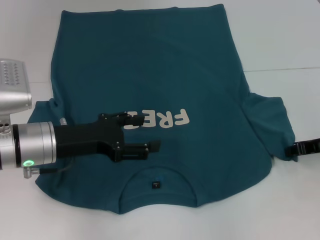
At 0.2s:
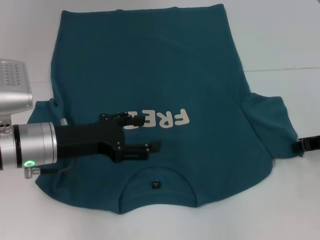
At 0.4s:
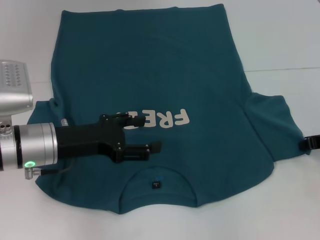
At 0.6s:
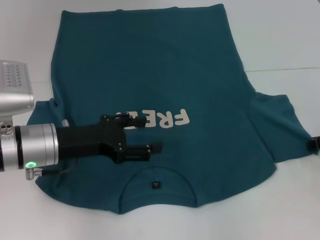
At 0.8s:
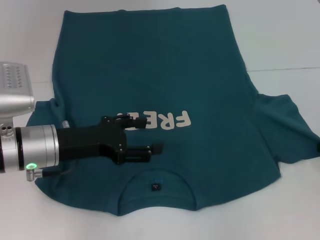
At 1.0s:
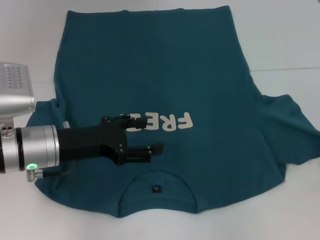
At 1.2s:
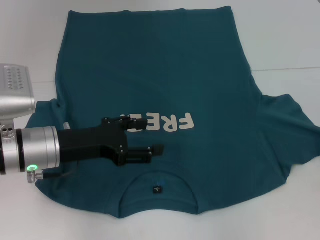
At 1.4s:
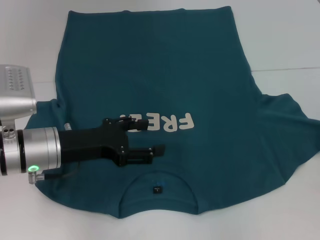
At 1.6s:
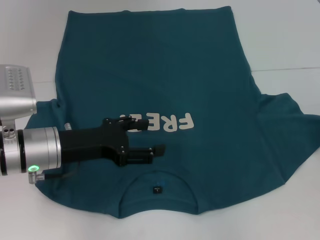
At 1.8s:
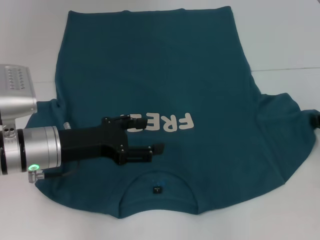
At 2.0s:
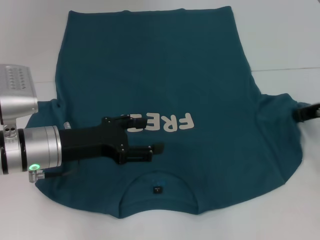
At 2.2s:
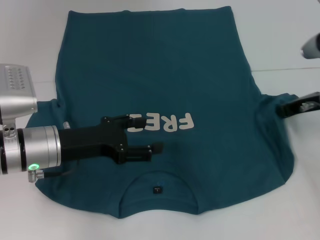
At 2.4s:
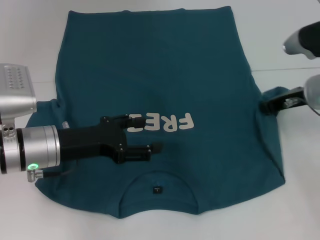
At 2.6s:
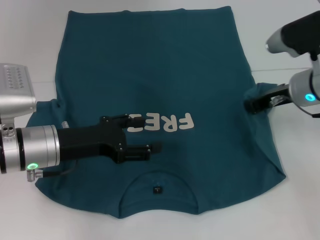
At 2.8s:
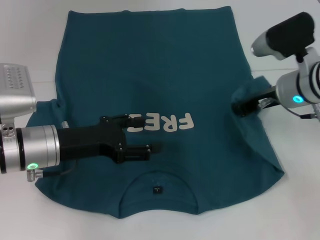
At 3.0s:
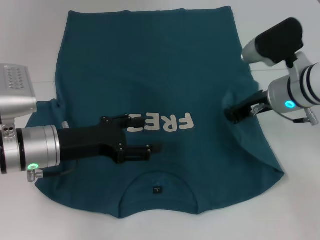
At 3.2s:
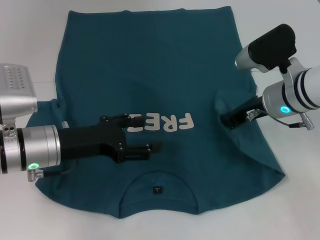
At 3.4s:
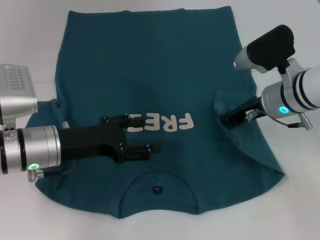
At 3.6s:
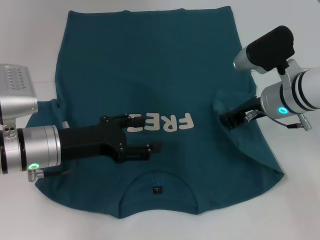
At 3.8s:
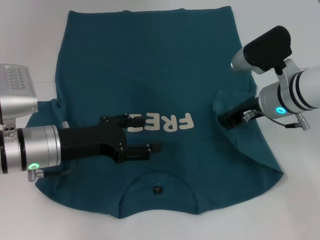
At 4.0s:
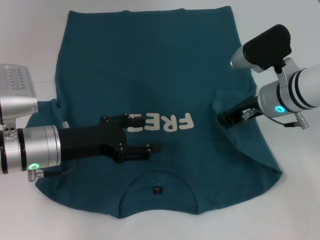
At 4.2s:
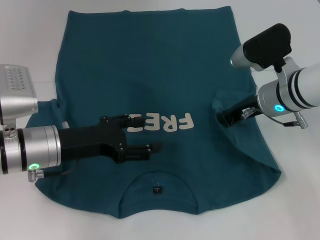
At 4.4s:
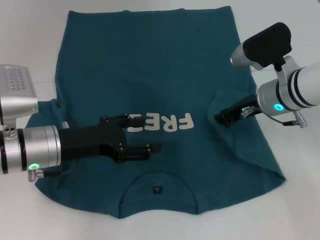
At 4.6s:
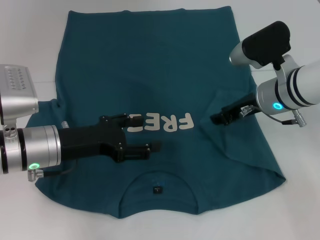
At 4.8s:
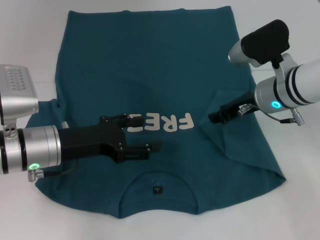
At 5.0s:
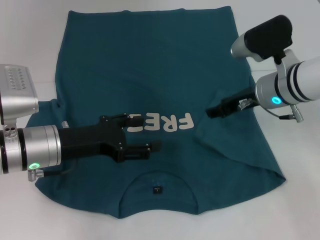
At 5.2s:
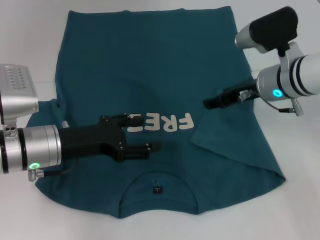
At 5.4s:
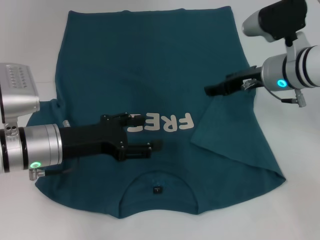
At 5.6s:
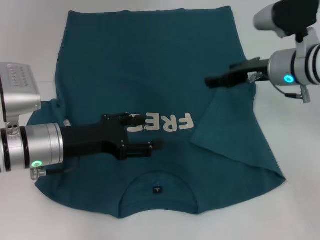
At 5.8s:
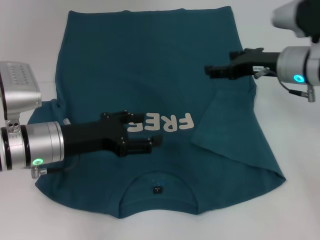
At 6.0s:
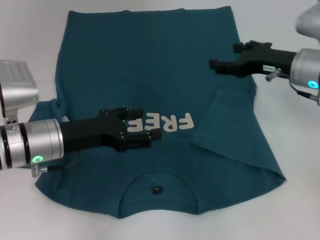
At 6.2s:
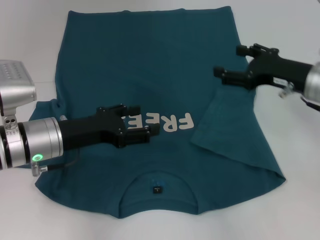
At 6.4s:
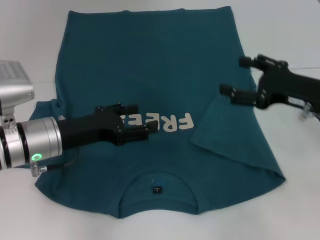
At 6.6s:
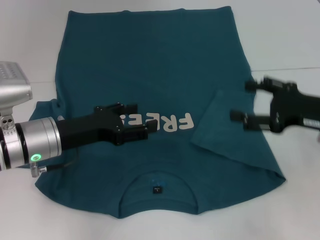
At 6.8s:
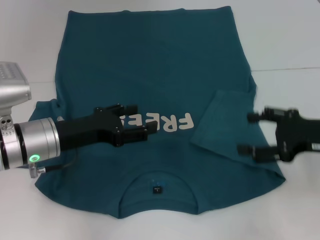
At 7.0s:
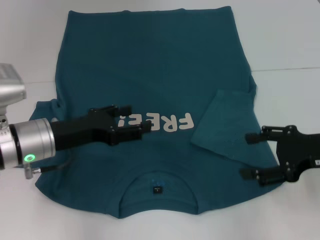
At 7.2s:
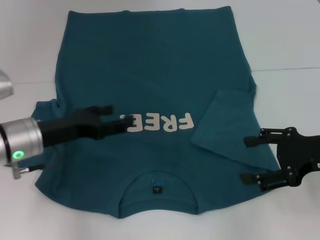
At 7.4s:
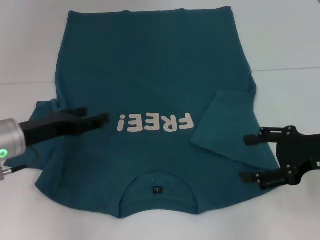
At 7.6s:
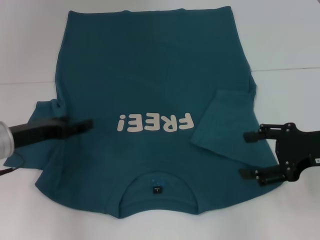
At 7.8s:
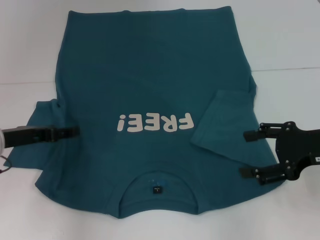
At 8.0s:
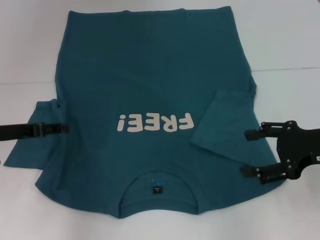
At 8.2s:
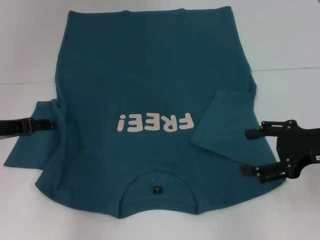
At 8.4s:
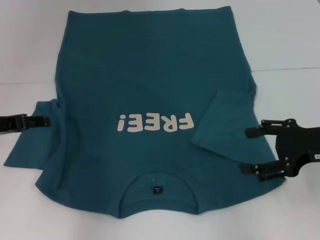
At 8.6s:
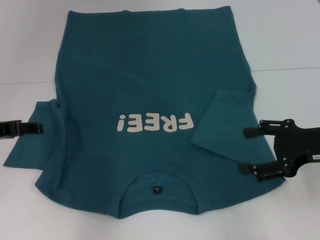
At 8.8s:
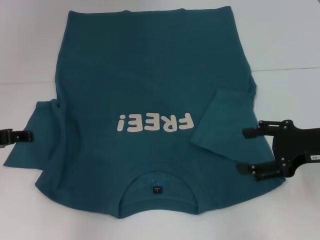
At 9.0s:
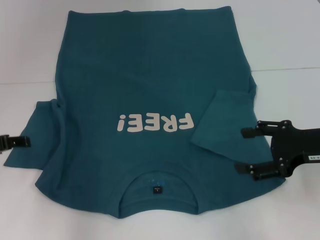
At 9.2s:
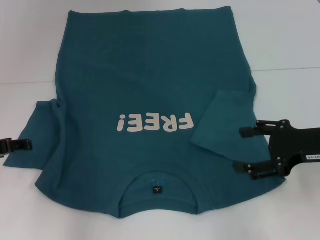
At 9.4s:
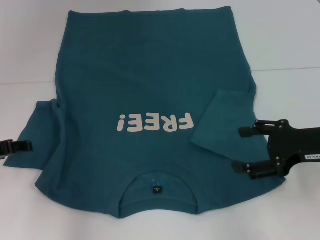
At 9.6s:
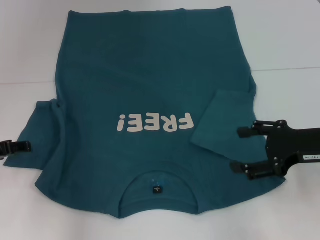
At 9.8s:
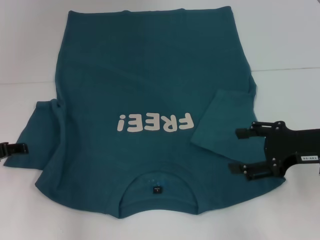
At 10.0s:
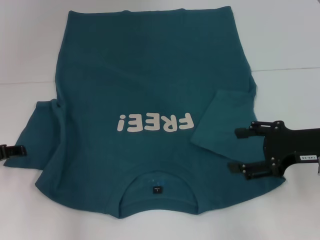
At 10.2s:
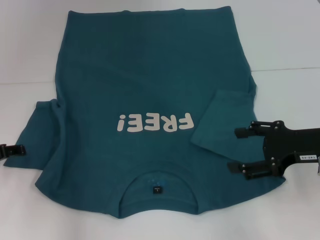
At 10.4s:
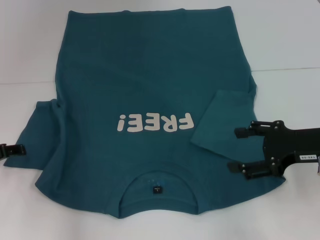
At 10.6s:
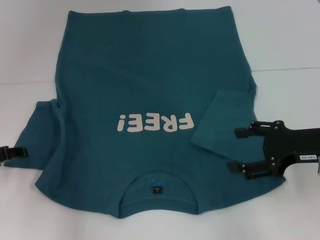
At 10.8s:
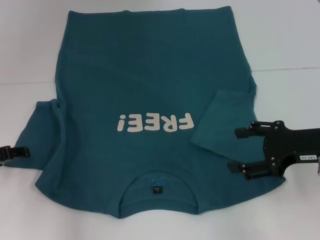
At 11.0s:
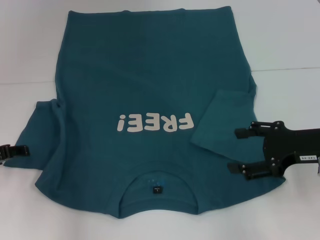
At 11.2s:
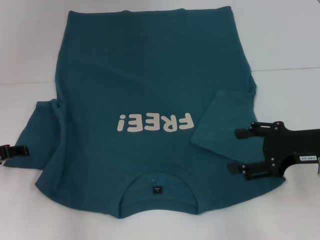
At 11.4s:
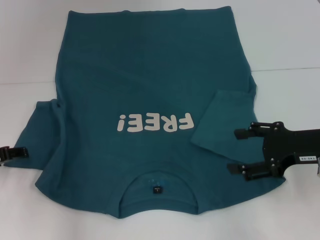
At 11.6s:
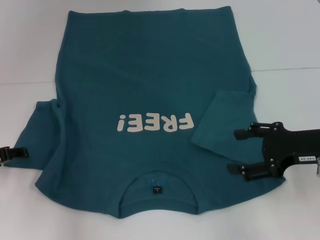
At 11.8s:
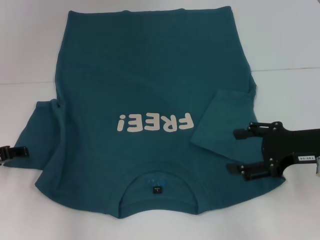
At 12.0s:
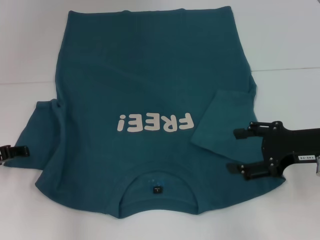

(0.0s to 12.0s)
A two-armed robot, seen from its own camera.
Step, 0.0s - 5.2s: Fold the bottom right sleeve to the right.
0.0s - 1.6s: The right gripper closes up.
1.6s - 3.0s: The right gripper goes roughly 15 cm to the left.
3.0s - 4.4s: There are only small adjustments of the grippers.
4.4s - 6.0s: The right gripper changes place by approximately 5 cm, and opens up.
6.0s - 7.6s: The left gripper shifts roughly 5 cm to the left; the right gripper goes about 10 cm backward.
7.6s - 9.0s: The left gripper changes place by roughly 5 cm.
9.0s - 10.4s: There are only small adjustments of the grippers.
10.4s - 12.0s: The two grippers keep their place.

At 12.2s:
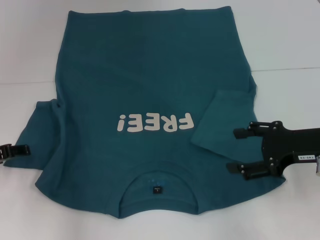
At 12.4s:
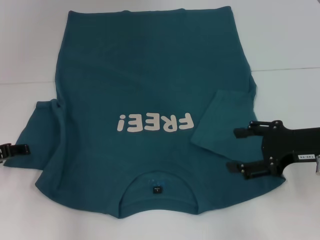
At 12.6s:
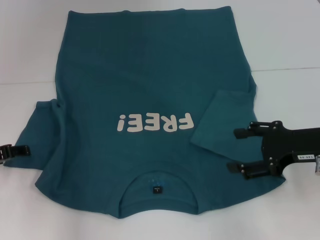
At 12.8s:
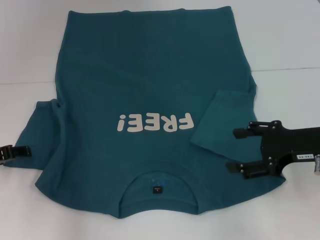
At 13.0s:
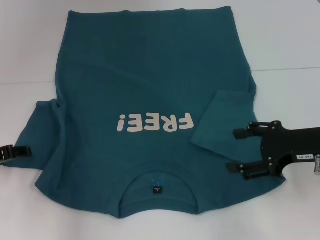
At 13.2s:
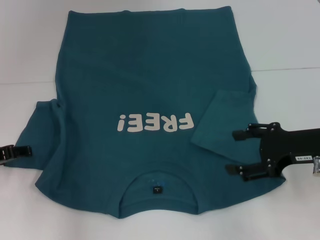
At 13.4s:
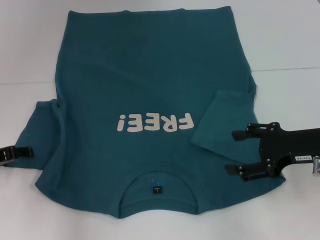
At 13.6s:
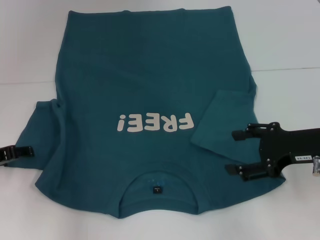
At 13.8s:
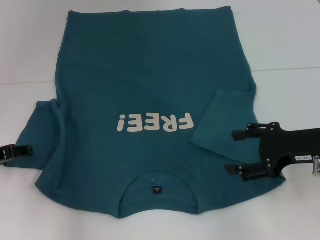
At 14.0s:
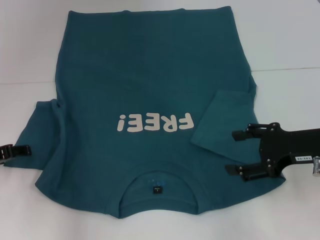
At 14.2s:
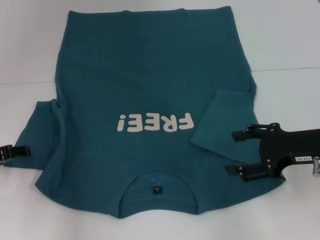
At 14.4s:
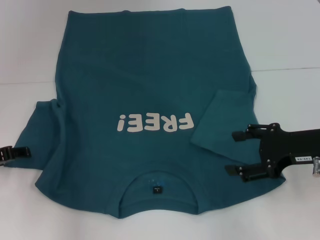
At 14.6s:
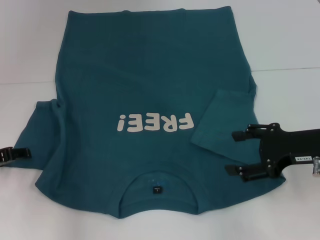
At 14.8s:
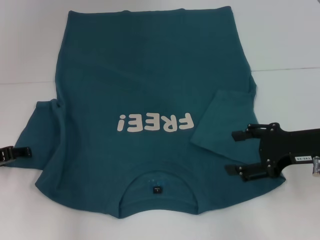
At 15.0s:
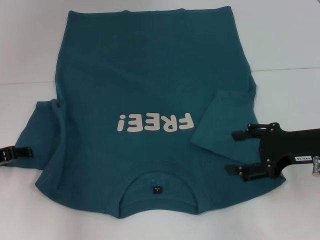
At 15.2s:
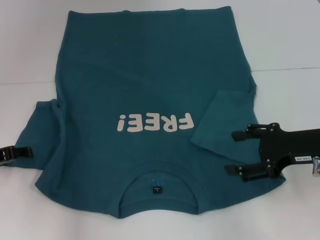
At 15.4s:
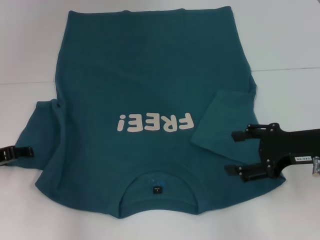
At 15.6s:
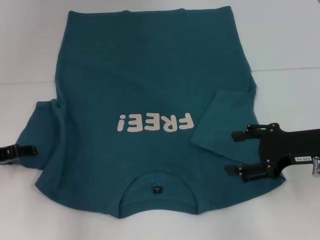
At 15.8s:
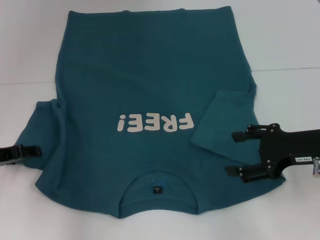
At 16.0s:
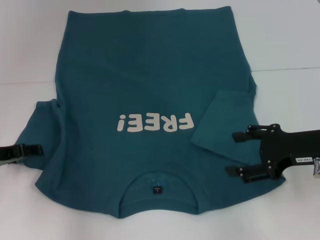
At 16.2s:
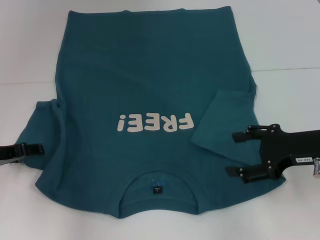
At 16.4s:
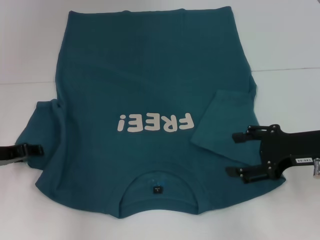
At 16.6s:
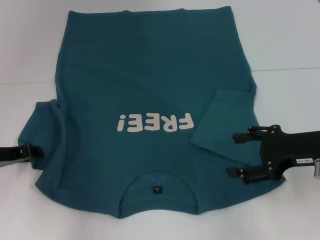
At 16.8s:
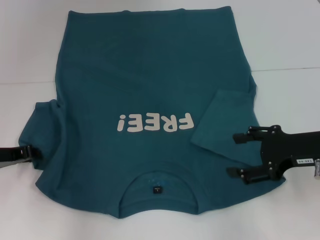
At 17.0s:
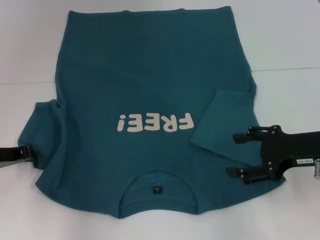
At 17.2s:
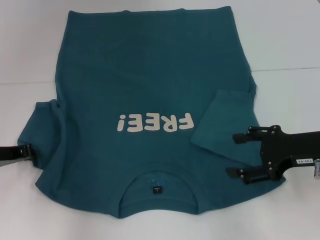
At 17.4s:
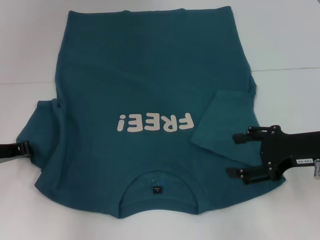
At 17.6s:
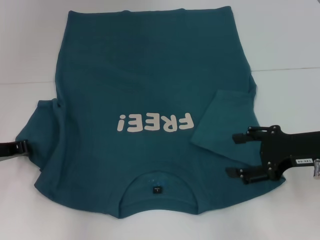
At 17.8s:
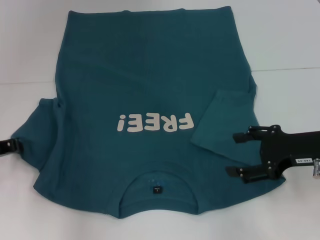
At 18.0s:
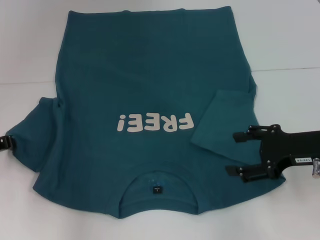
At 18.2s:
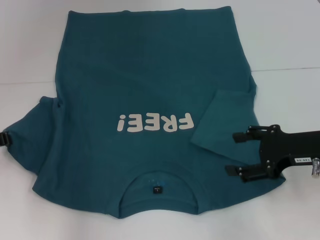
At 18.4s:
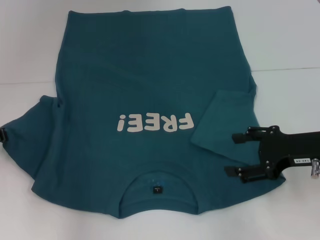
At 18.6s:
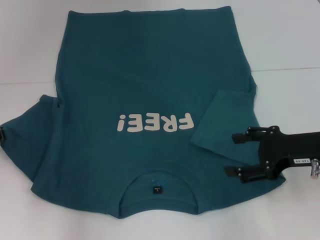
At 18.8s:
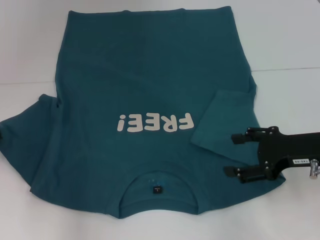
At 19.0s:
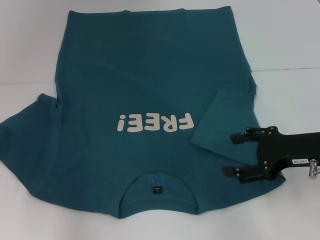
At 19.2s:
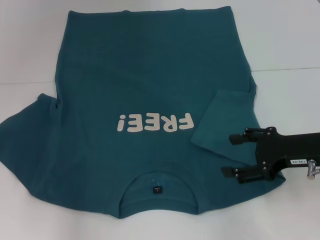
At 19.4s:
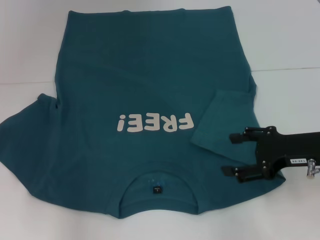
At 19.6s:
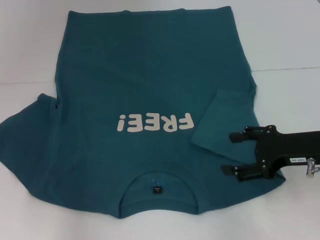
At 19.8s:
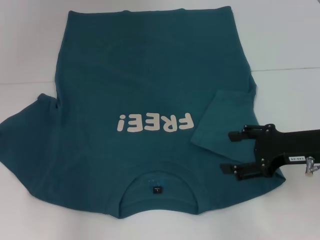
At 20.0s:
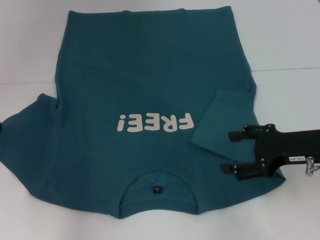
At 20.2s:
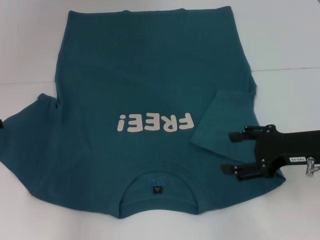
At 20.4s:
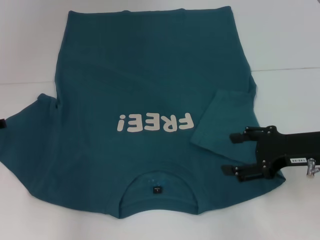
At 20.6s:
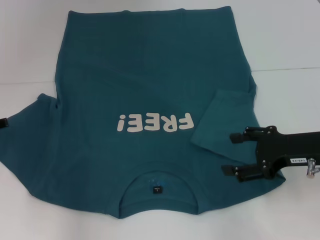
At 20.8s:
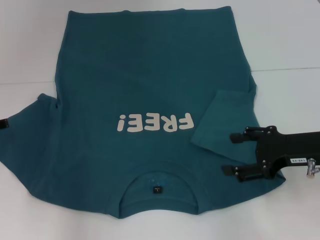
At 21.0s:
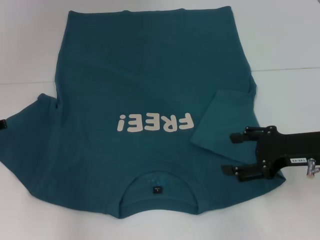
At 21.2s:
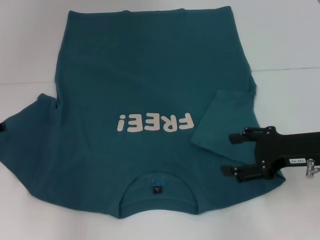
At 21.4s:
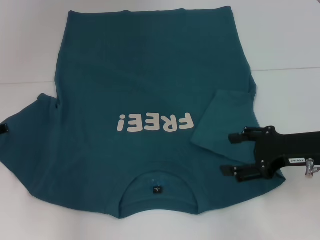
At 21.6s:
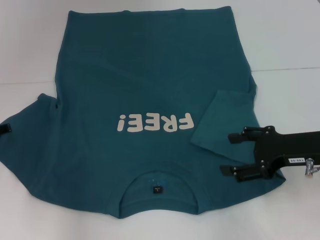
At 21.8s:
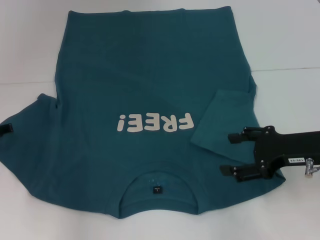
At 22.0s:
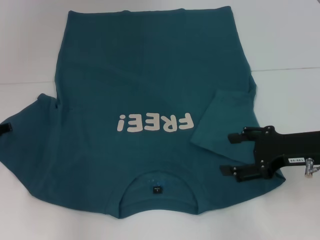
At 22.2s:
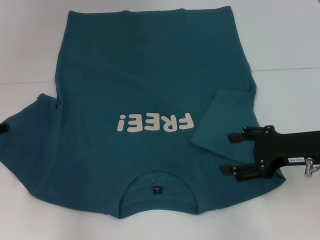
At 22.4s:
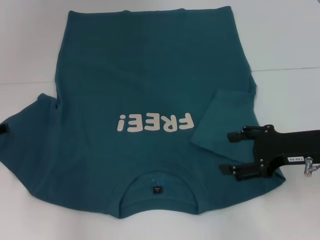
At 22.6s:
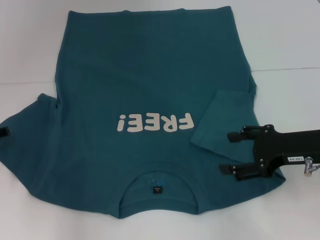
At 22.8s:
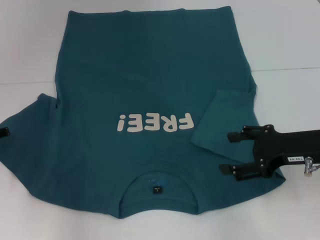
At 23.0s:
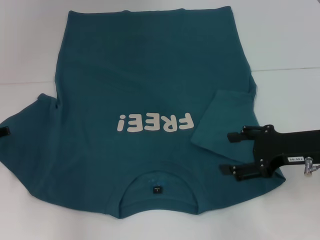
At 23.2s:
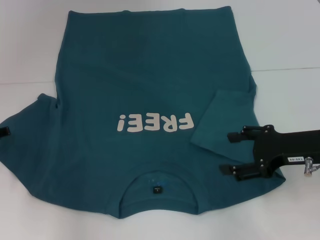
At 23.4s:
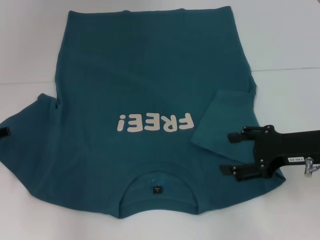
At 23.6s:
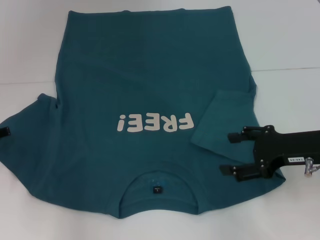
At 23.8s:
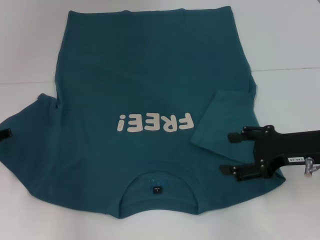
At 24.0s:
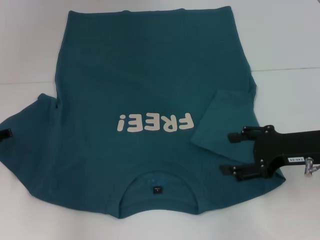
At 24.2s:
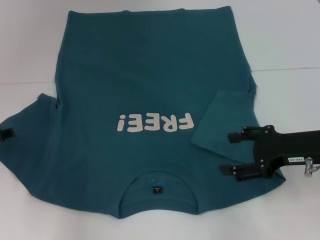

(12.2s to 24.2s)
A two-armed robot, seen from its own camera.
12.2s - 15.2s: Both grippers stay about where they are.
15.2s - 16.6s: The grippers stay close to where they were, moving slightly.
16.6s - 18.2s: The left gripper closes up.
18.2s - 19.8s: The grippers make only small movements.
21.2s - 22.6s: The grippers make only small movements.
22.6s - 24.2s: Both grippers stay put.
